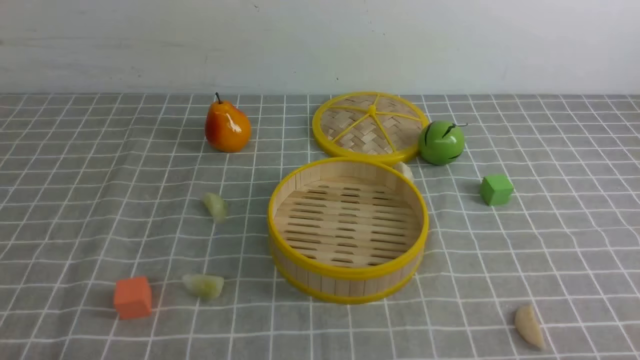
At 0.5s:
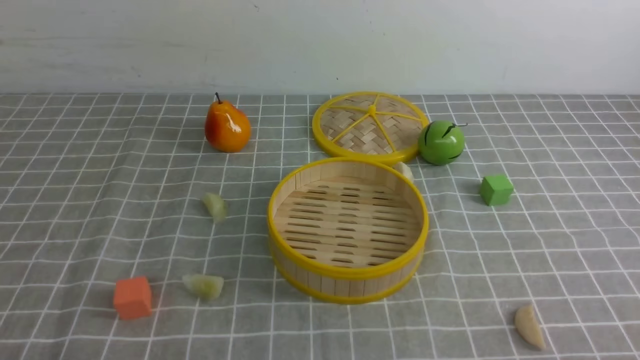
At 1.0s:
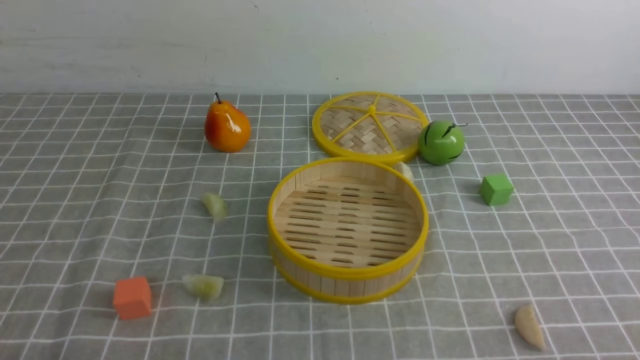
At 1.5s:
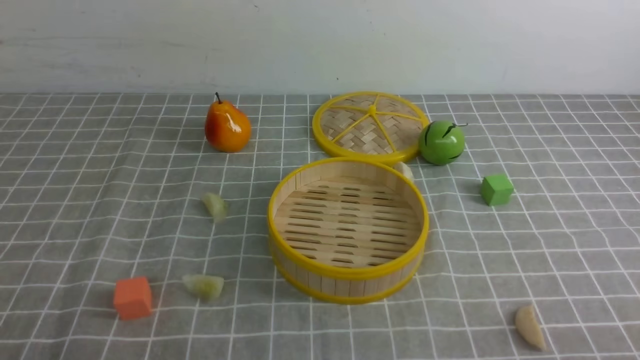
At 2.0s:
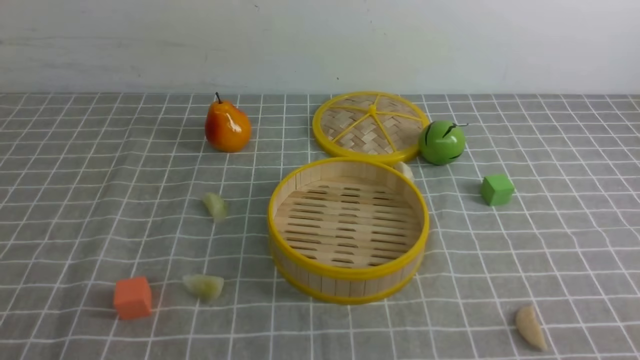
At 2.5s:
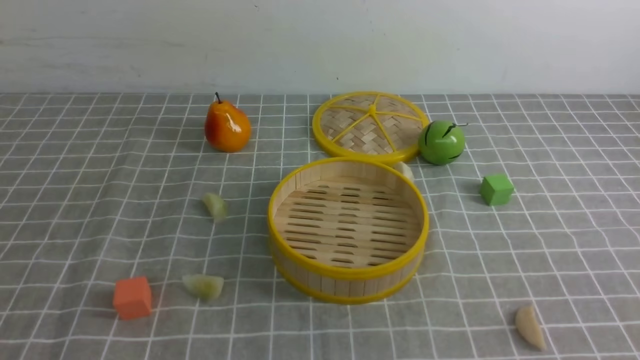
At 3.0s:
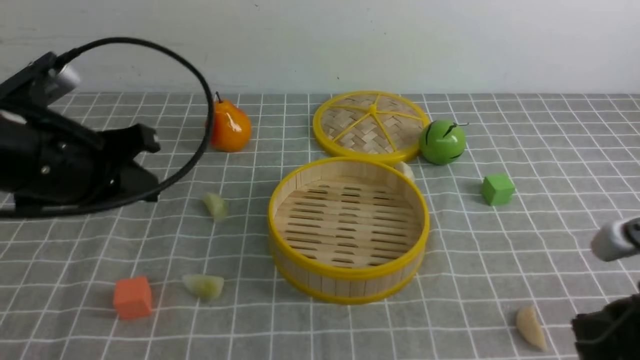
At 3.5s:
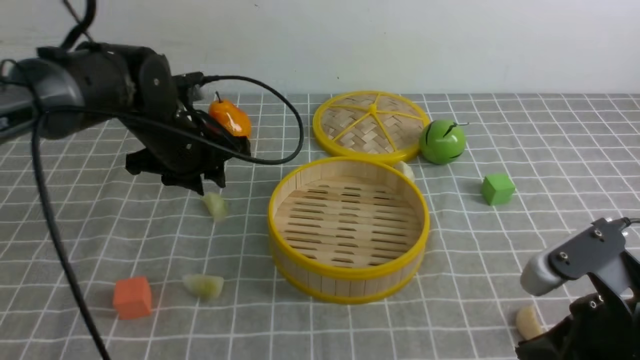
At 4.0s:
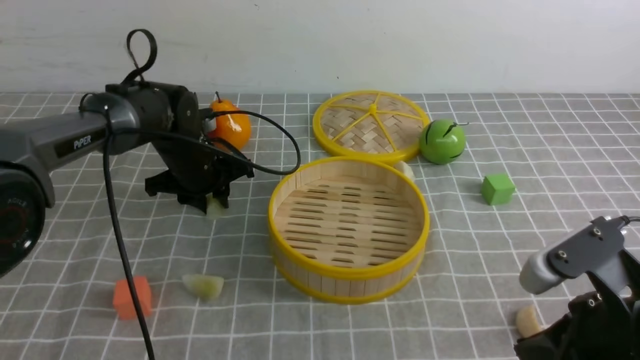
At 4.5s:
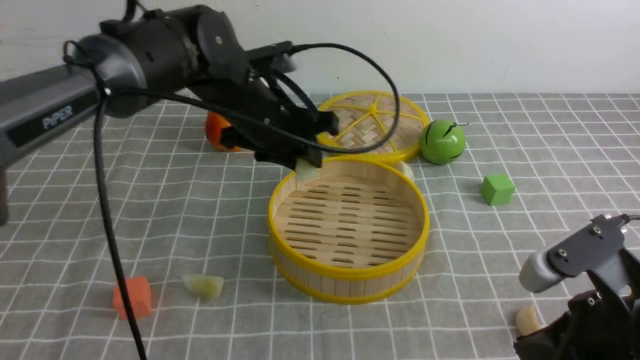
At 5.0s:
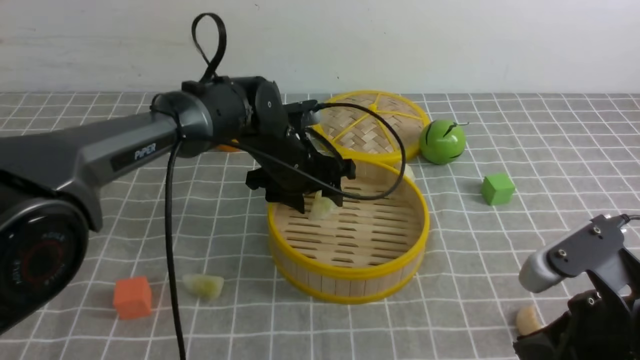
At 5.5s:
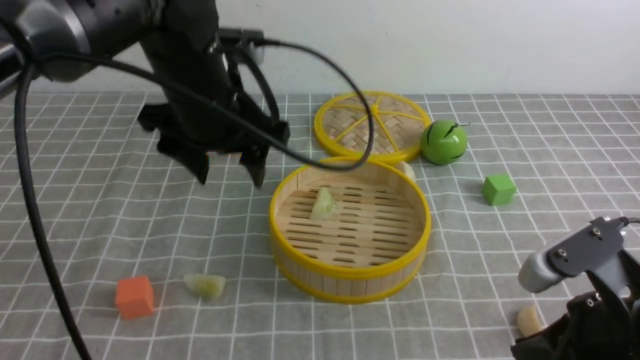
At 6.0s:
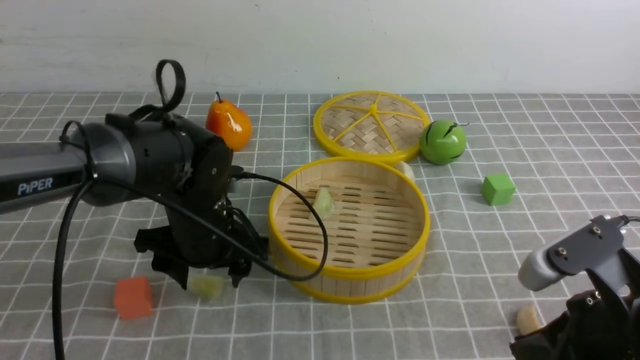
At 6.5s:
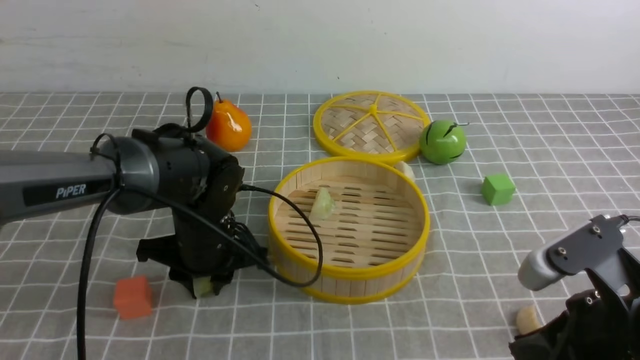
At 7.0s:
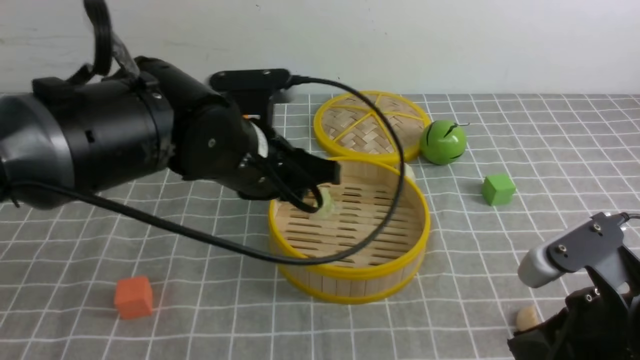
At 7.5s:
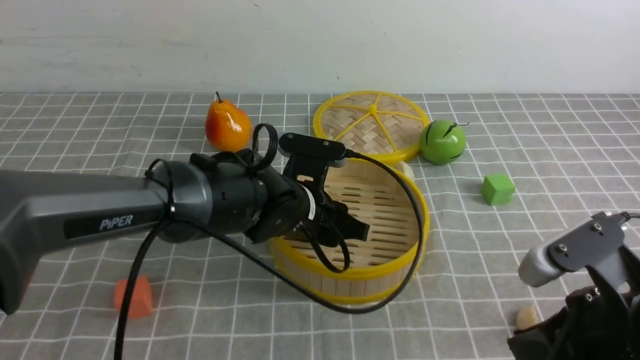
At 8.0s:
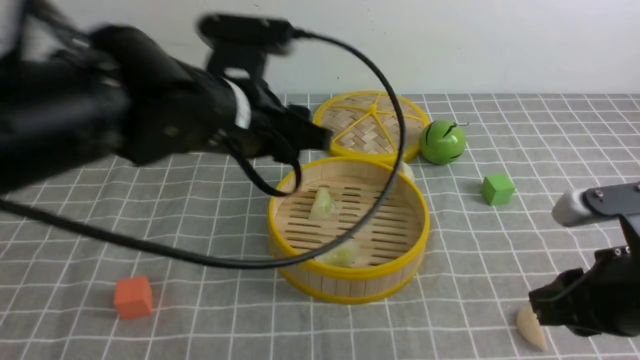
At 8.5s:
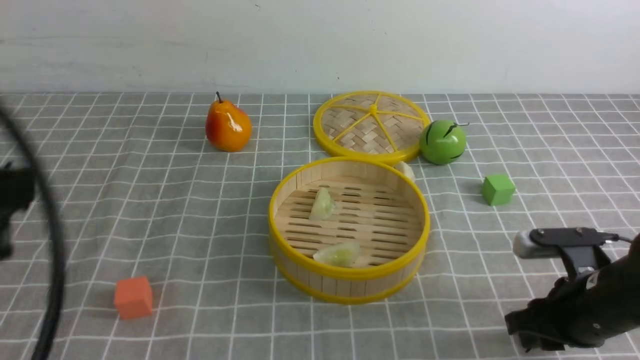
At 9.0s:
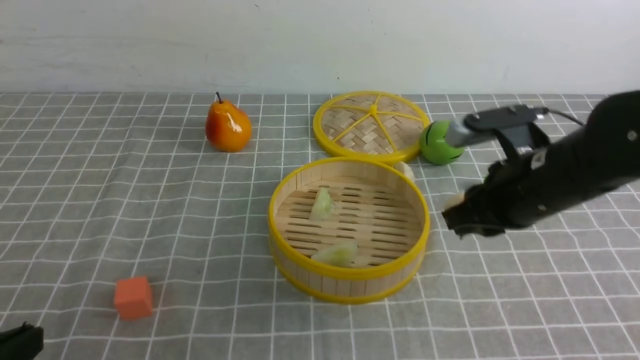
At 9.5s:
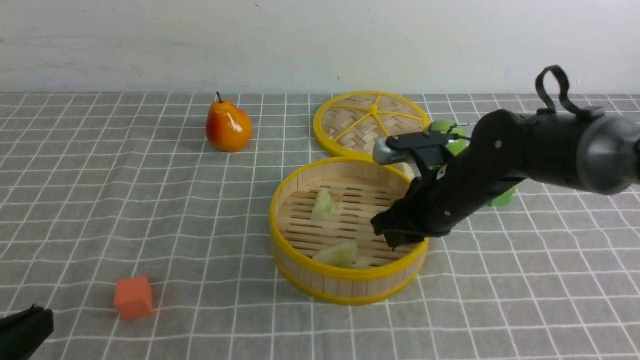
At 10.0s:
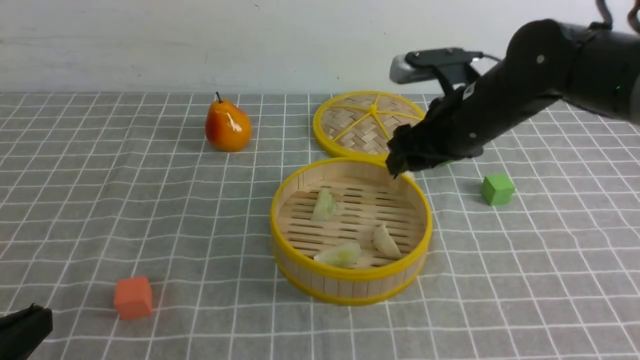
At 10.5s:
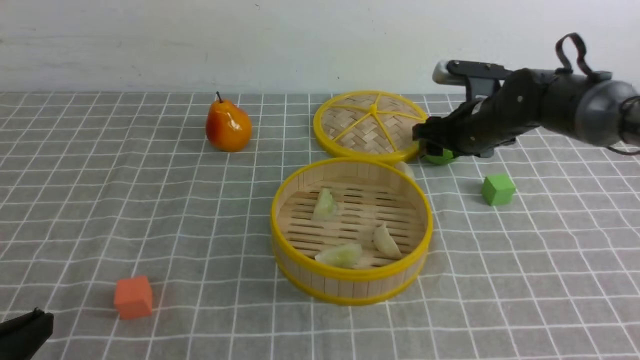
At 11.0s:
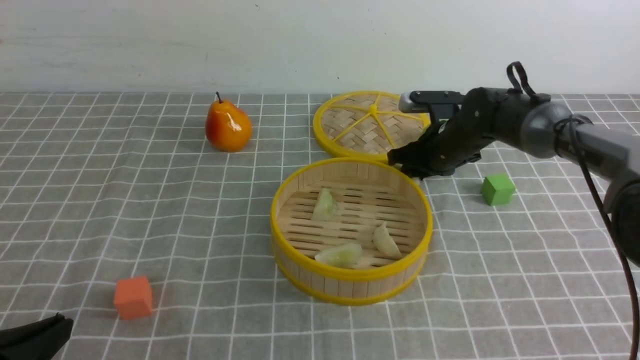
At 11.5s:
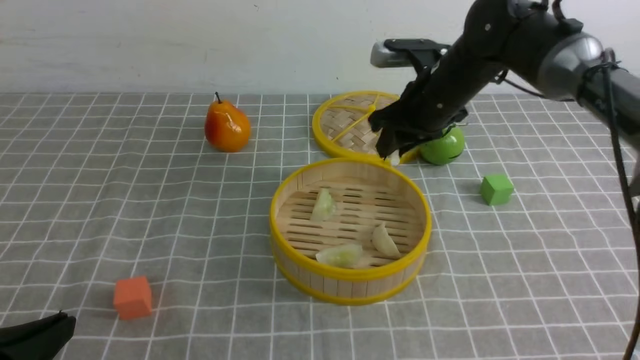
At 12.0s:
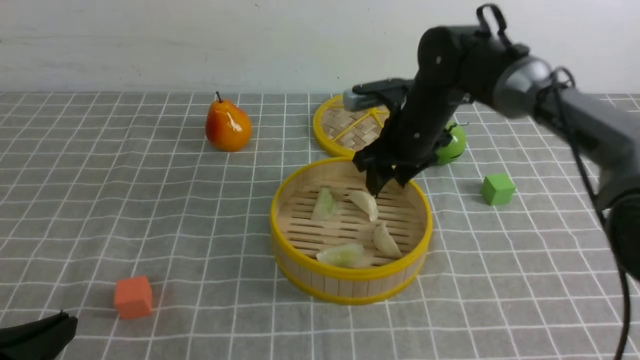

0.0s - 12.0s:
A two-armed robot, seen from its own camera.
Task of the whole recording: put the dumplings into the steamer on the table with the grey tablecloth.
Step, 0.0s - 4.0s: use the left arm to grab a dumpling.
Step, 4.5s - 5.0s: use the left arm to put the dumpling into the steamer.
Step, 5.5s - 6.5s: use the left arm to grab a dumpling.
Step, 7.0s - 7.5s: use the left arm to put the dumpling into the steamer.
Step, 8.0s - 8.5s: use the right arm to grab a dumpling.
Step, 9.0s - 9.5s: use the right arm to put the dumpling into the steamer.
Step, 10.0s - 11.0s: use the right arm to grab a dumpling.
Step, 11.5s - 12.0s: use the right arm to put the dumpling into the steamer.
2.0s - 4.0s: The right gripper heads forward and to the left, covering some 15 cm. Meanwhile the left gripper shifts about 40 cm forward.
4.0s - 6.0s: The left gripper goes approximately 15 cm backward, and opens.
6.0s - 8.0s: The left gripper moves up and down over some 15 cm, changing direction 2 times.
8.0s - 10.0s: The right gripper heads forward, covering roughly 20 cm, and opens, while the left gripper goes roughly 30 cm backward, to the left and downward, and closes.
10.0s - 12.0s: The right gripper moves some 10 cm downward and comes back.

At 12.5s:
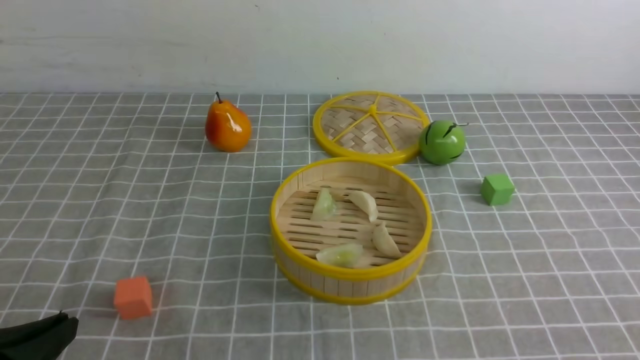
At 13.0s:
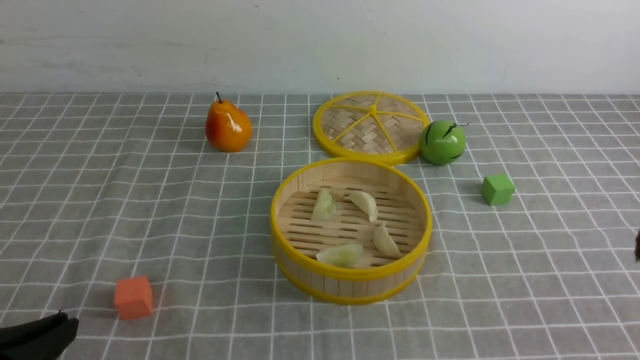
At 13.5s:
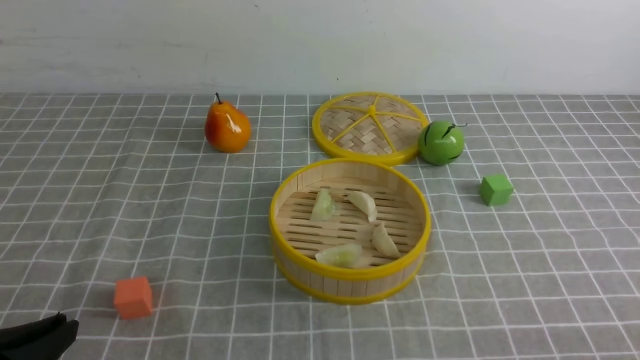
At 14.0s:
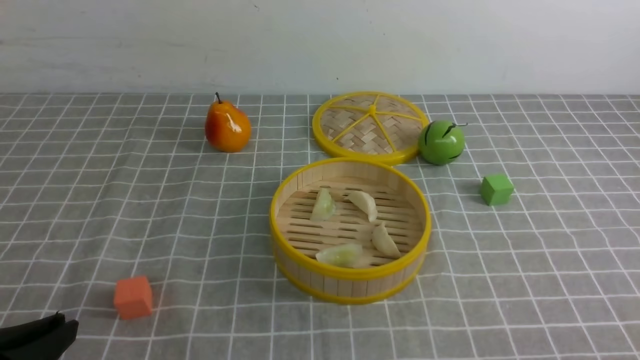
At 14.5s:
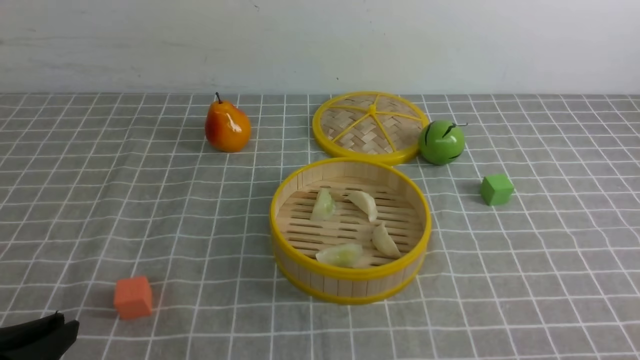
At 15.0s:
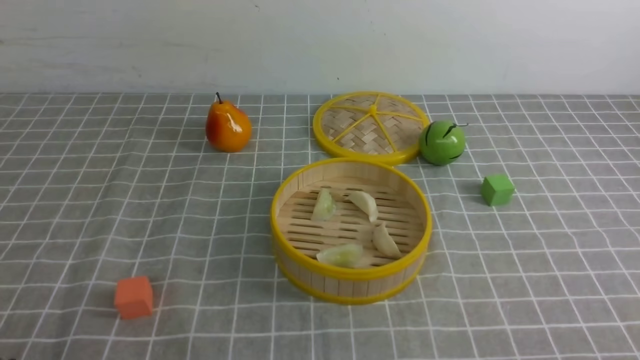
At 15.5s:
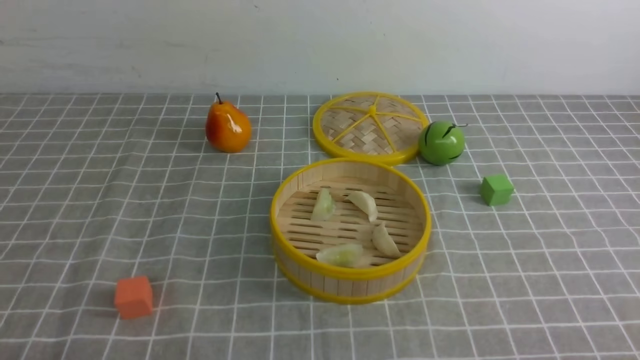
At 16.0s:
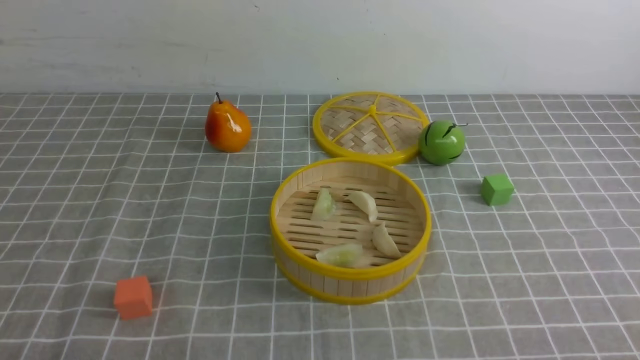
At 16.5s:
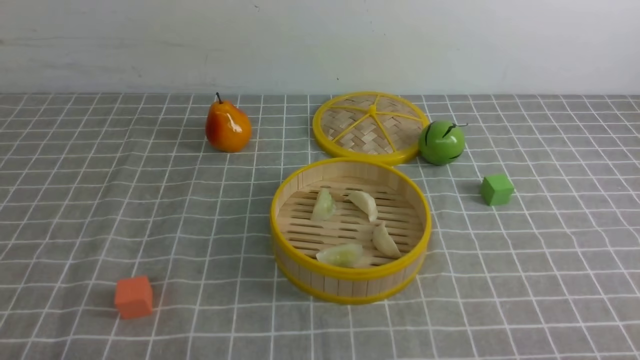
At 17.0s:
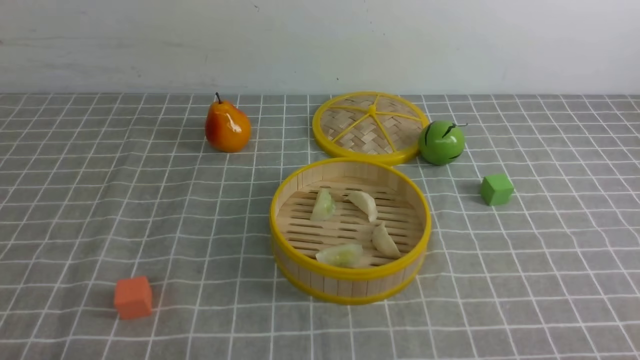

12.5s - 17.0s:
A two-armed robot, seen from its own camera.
Task of the whole recording: put the dumplings into the steamer on the table with the grey tablecloth.
14.5s - 17.0s: The left gripper heads downward, covering some 10 cm.

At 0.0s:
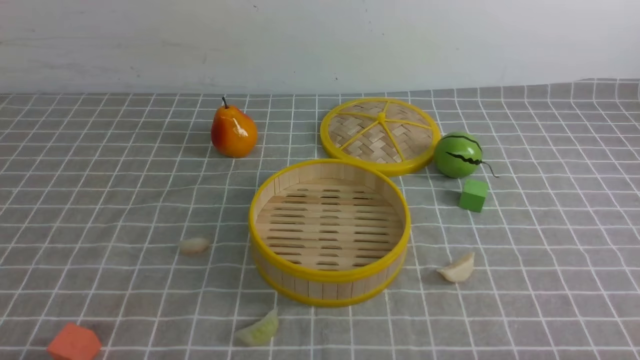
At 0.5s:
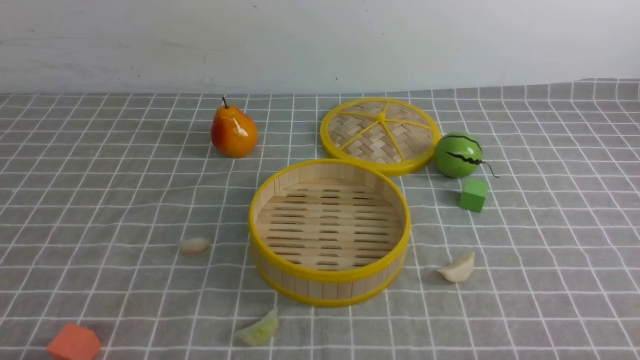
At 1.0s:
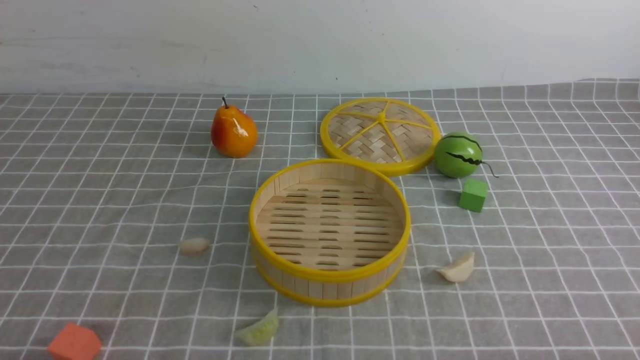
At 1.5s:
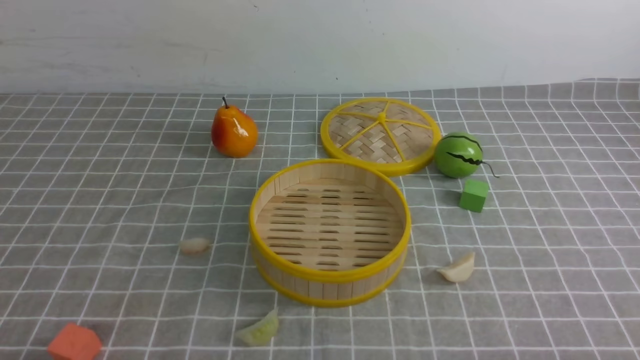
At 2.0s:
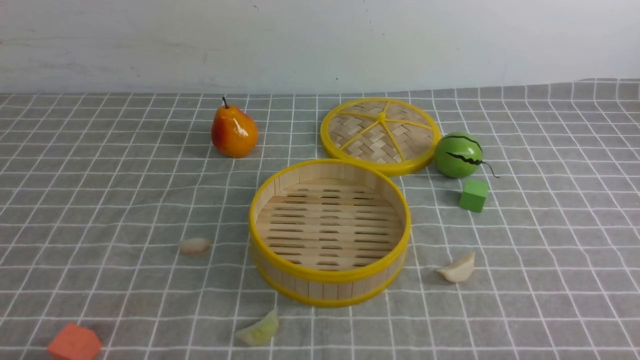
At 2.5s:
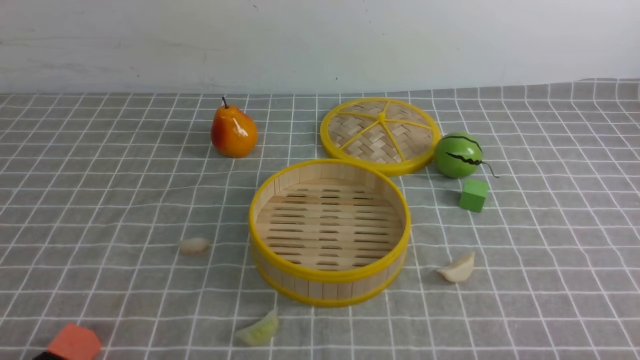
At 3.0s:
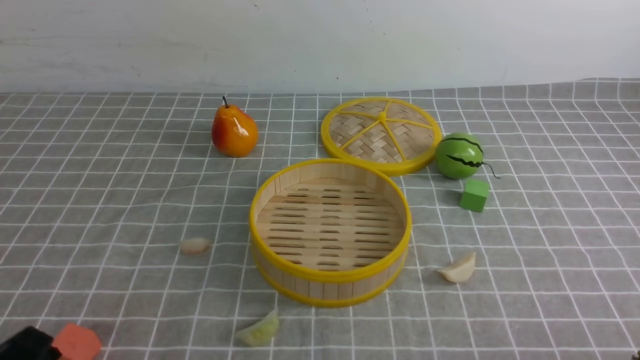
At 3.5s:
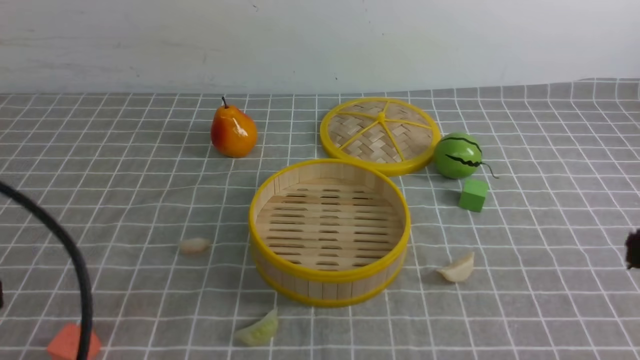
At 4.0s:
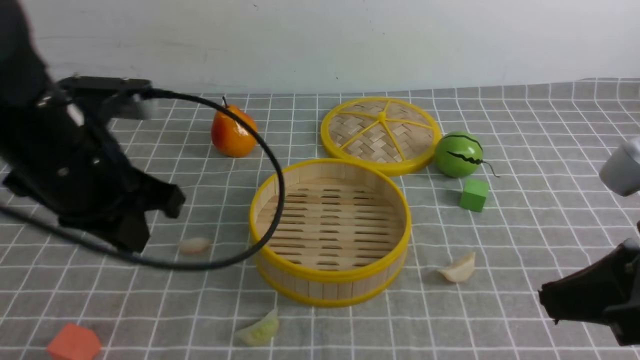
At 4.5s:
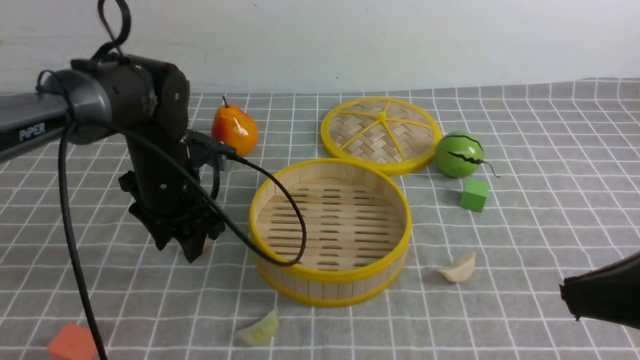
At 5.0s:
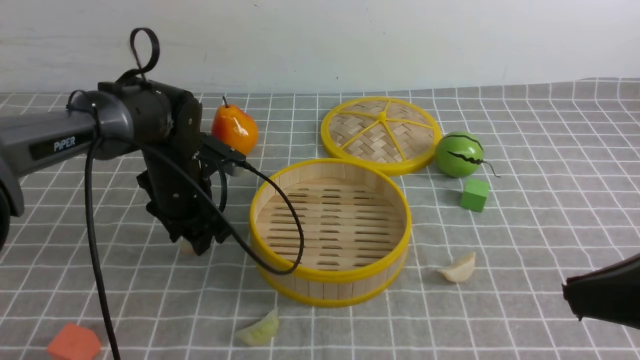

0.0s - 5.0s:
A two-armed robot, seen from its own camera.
Task of the whole recording: put the dumplings into the steamer on the table with the grey tablecloth.
2.5s - 5.0s: The right gripper shifts approximately 20 cm upward and forward, and closes its fingers; the left gripper travels forward by some 35 cm, and opens up.
